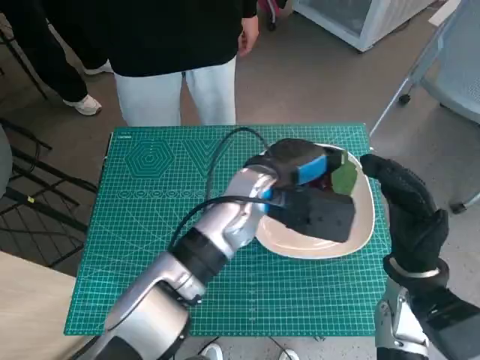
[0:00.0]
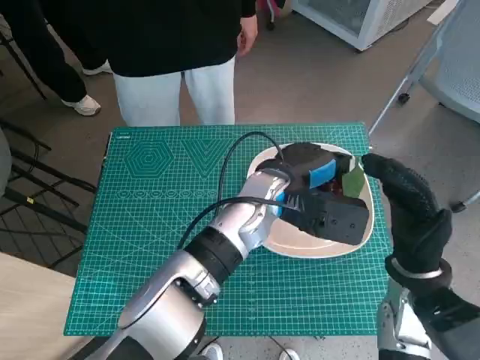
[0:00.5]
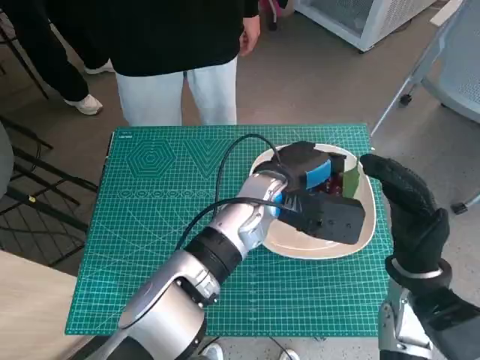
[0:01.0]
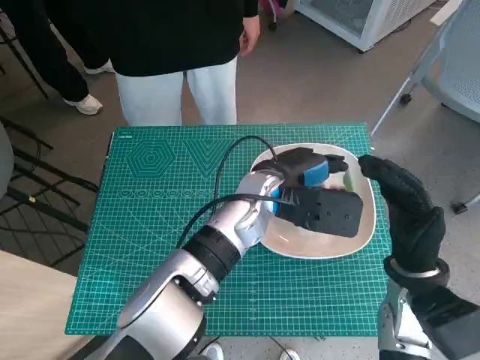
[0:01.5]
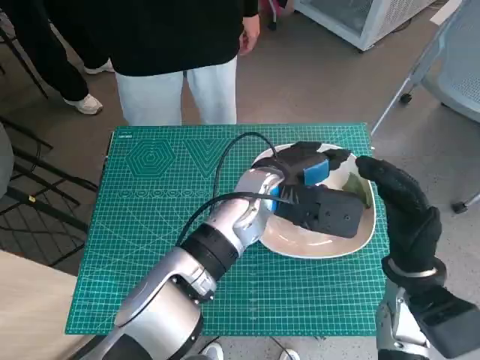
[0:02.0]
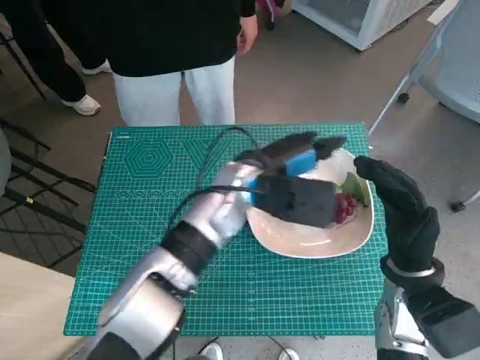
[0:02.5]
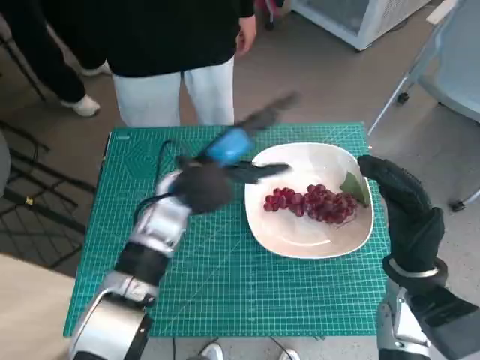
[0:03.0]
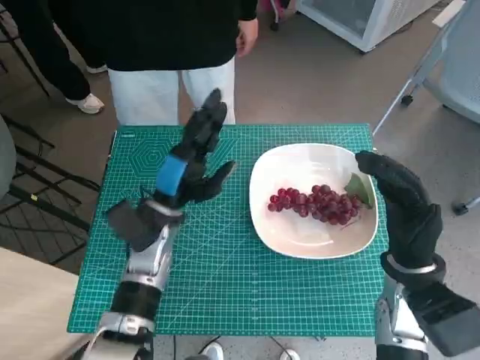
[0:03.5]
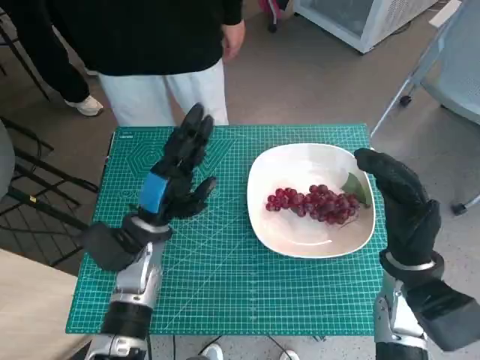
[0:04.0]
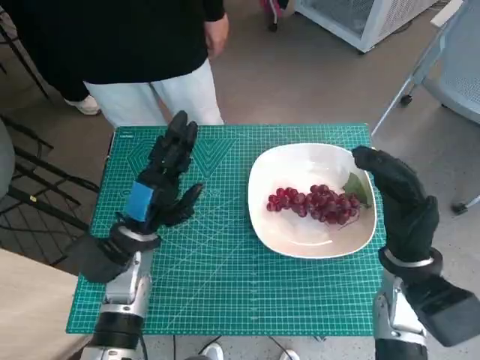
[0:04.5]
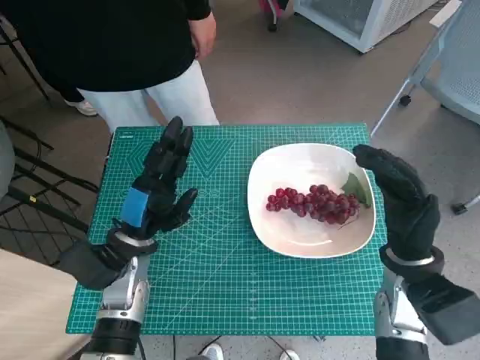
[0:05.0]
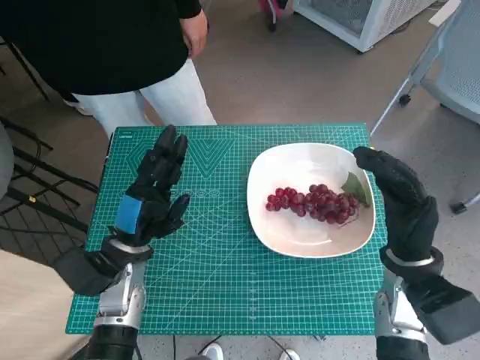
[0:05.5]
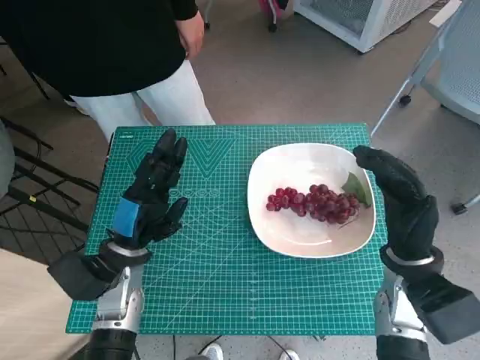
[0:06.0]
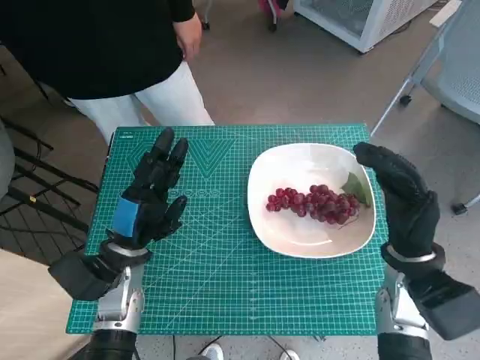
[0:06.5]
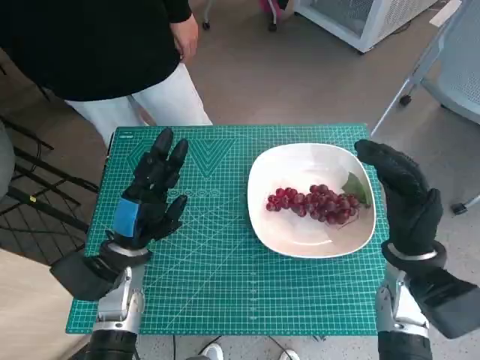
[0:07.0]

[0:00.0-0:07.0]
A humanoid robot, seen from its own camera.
Task of the whole recording: Pick up the grapes and put them on the plate.
Step, 0:00.0 to 0:02.0: Place the grapes in the plate with left hand.
0:00.0 to 0:02.0: There are only small adjustments of the hands.
0:02.0 to 0:03.5: The left hand travels to the left by some 15 cm.
0:03.5 to 0:05.0: The left hand ends up some 5 cm from where it was.
0:05.0 to 0:07.0: The hands move only a little.

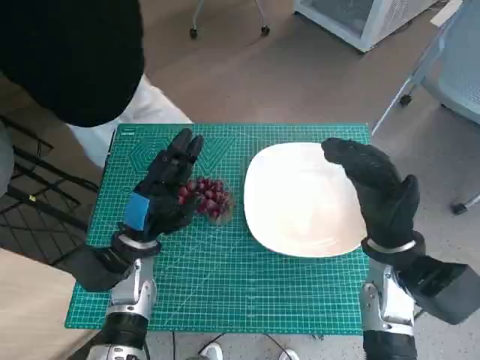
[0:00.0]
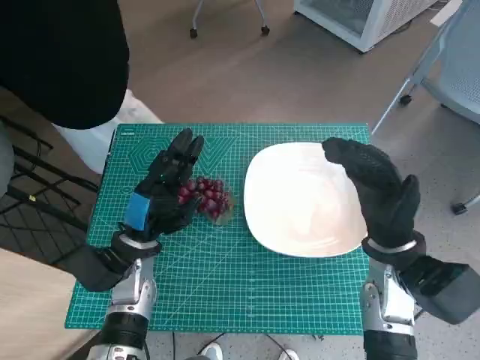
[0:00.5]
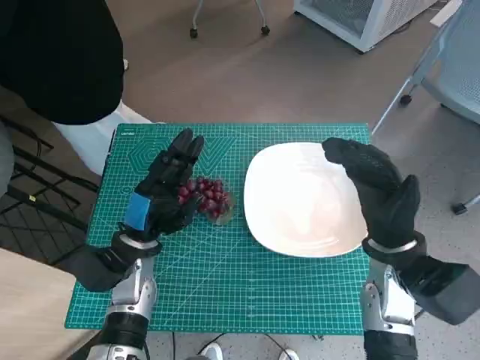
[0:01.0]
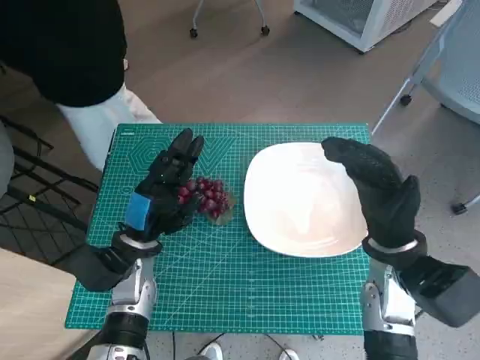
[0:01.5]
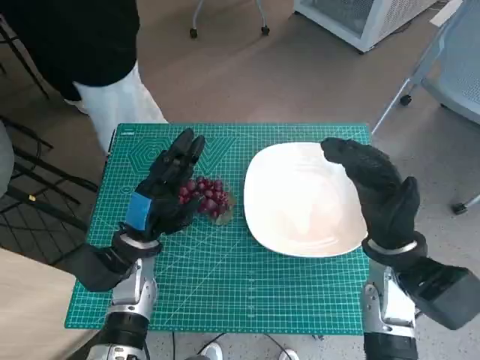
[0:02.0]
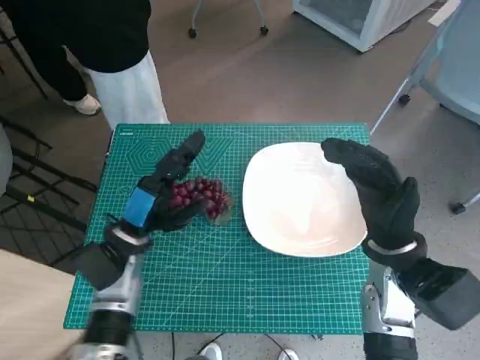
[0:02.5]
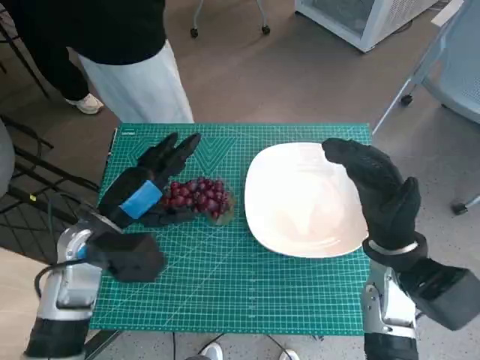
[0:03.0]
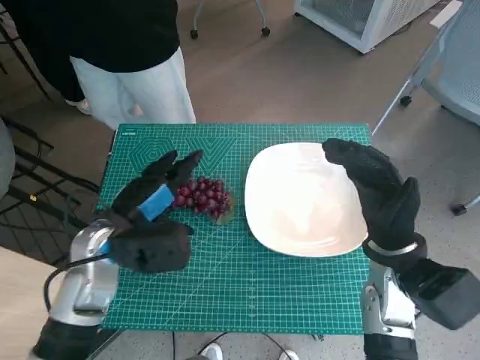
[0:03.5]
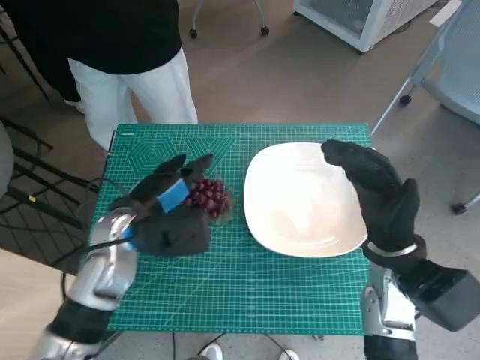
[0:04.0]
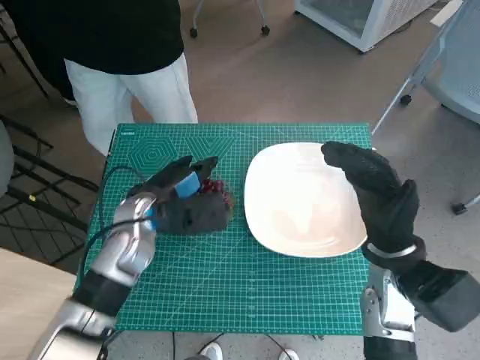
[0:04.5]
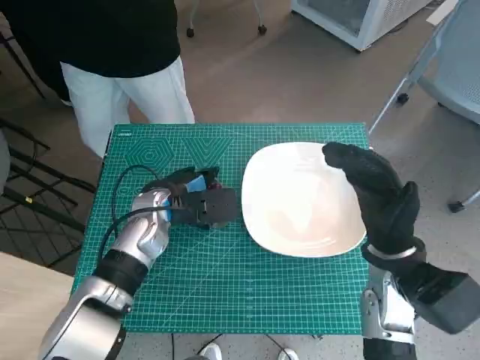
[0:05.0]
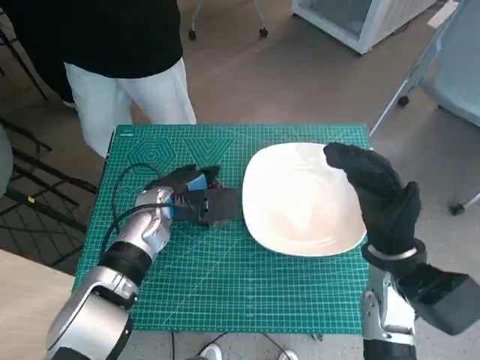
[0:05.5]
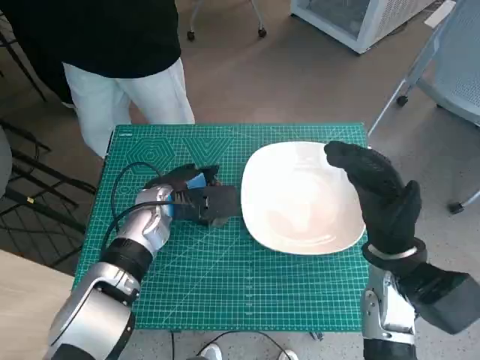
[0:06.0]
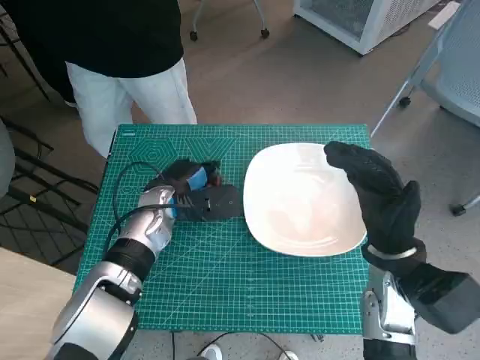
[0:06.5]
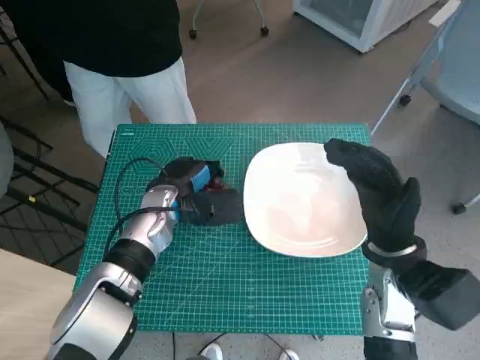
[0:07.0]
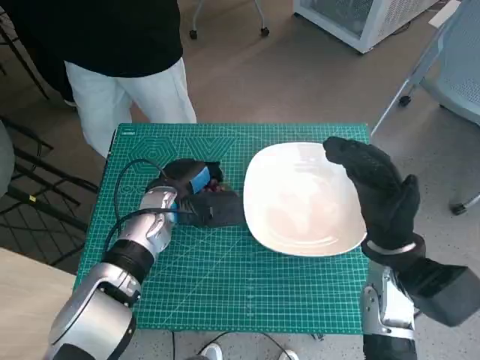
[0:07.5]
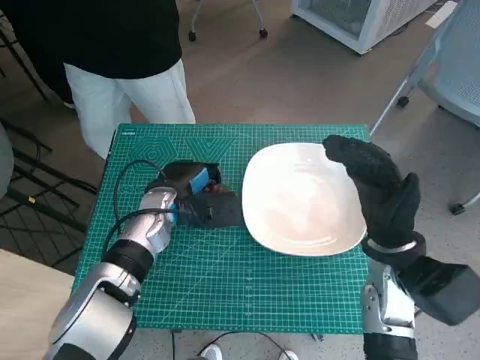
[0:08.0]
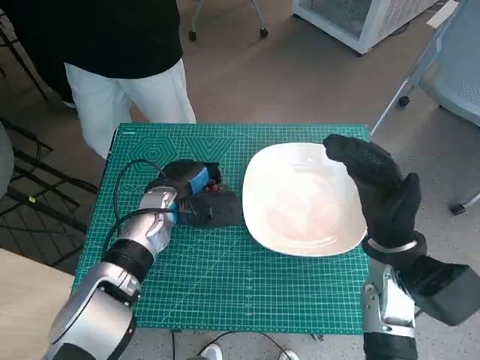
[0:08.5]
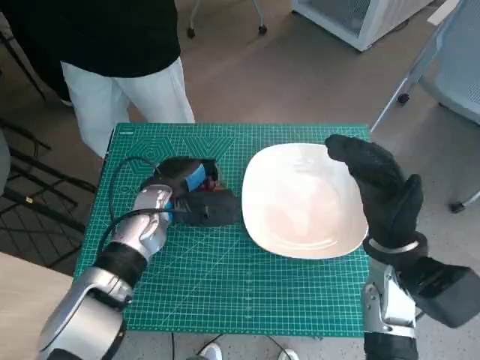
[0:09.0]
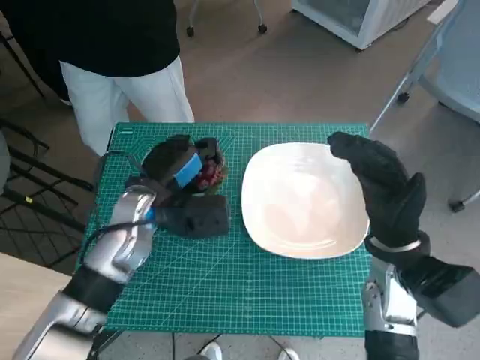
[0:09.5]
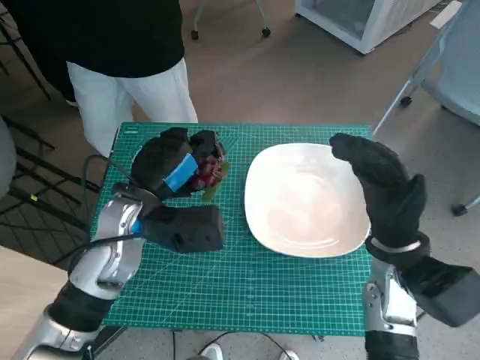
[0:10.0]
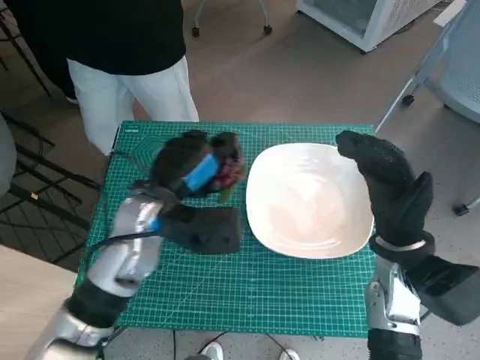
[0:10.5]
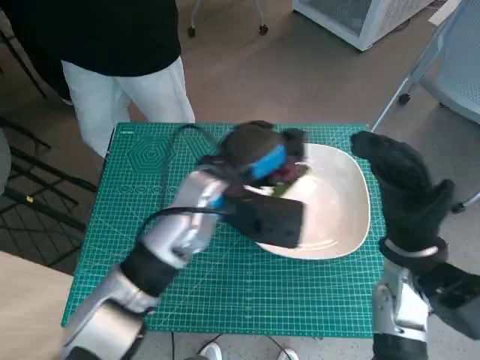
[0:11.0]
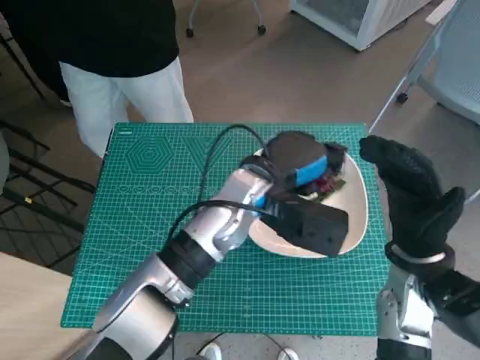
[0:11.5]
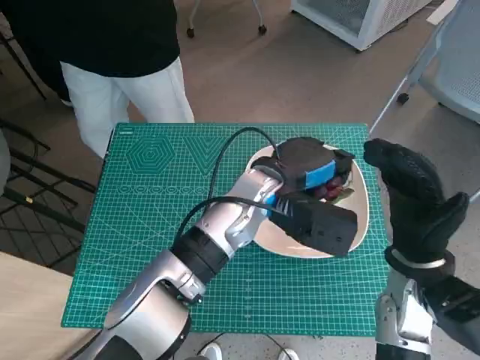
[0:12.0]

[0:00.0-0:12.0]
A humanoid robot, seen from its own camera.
Task of the whole recording: Pick up the grapes and put them on the plate.
Step, 0:00.0 to 0:06.5: Grasp the grapes with left hand.
0:02.0 to 0:04.0: The left hand travels upward by about 5 cm.
0:04.0 to 0:06.0: The left hand moves forward, approximately 5 cm.
0:06.0 to 0:08.0: There are only small adjustments of the hands.
0:08.0 to 0:10.0: The left hand moves upward and backward, about 10 cm.
0:10.0 to 0:12.0: The left hand goes approximately 15 cm to the right.

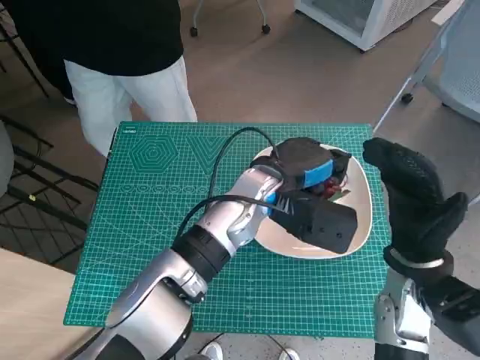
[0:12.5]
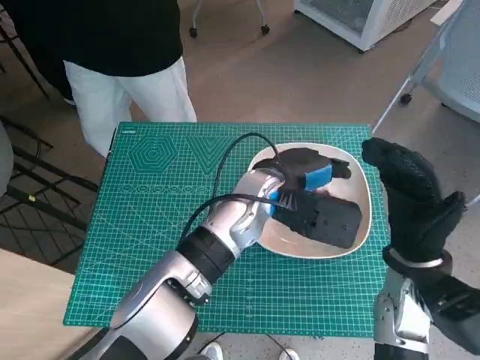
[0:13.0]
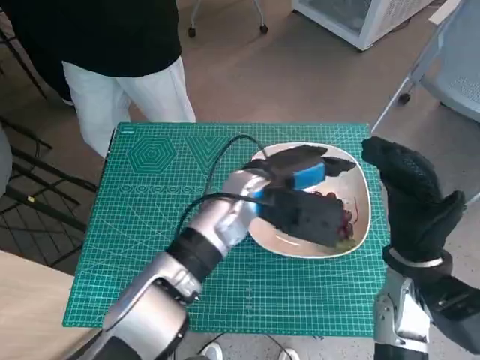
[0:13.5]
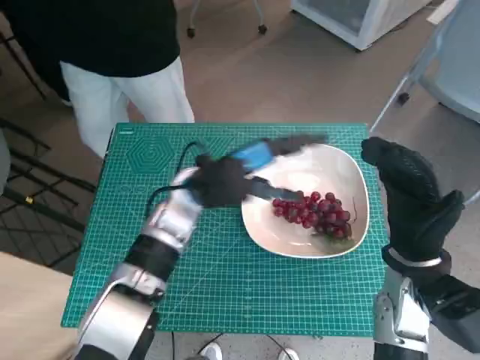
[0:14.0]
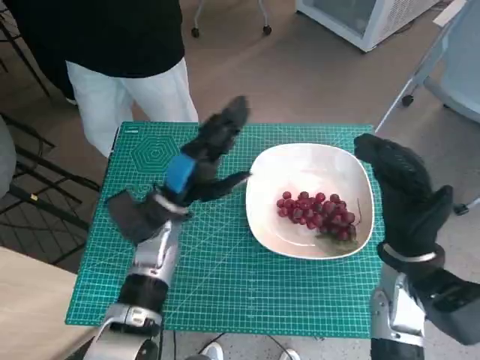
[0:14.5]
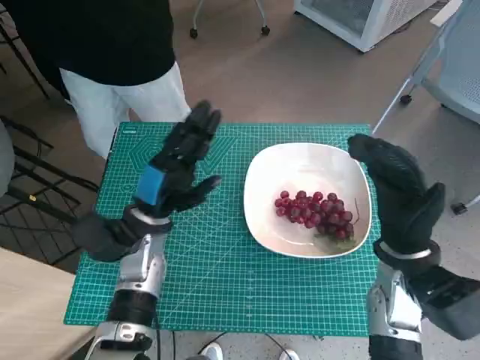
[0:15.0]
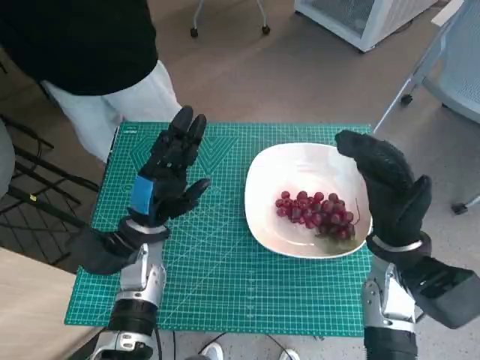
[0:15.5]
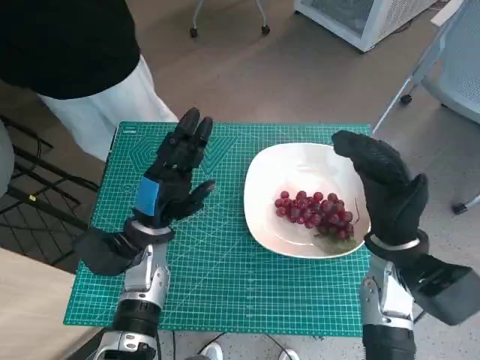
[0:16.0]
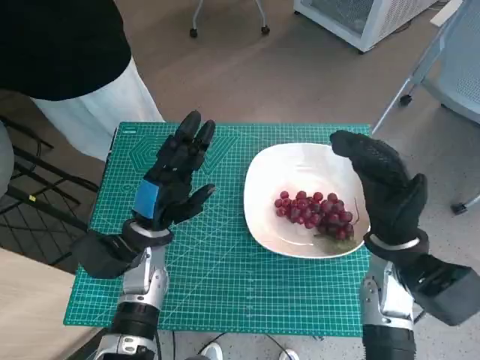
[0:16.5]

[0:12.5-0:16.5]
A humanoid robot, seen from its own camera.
Task of the whole recording: Pick up the grapes and put them on the plate.
0:12.5 to 0:14.5: The left hand moves to the left and downward, roughly 15 cm.
0:14.5 to 0:16.5: The left hand shifts by some 5 cm.

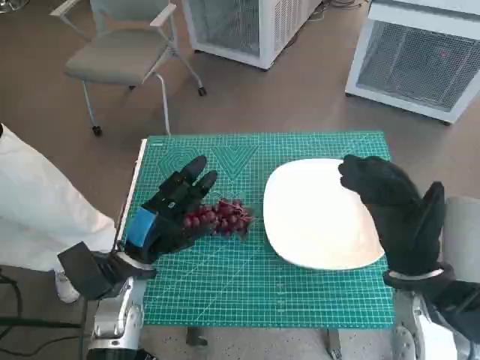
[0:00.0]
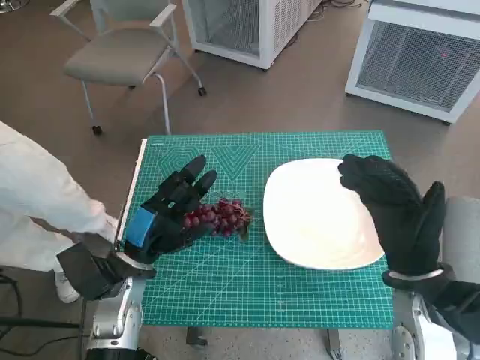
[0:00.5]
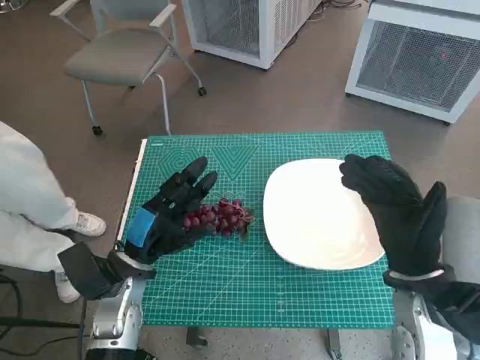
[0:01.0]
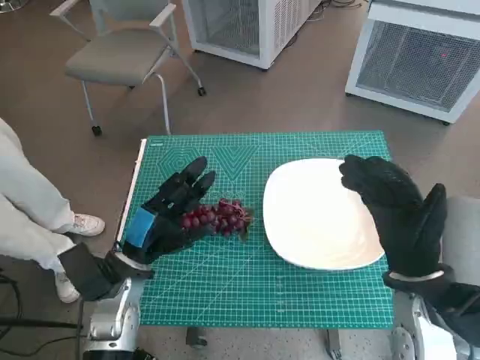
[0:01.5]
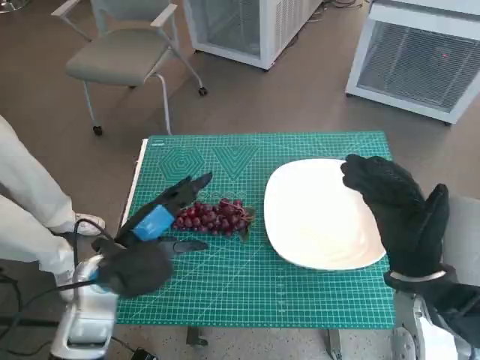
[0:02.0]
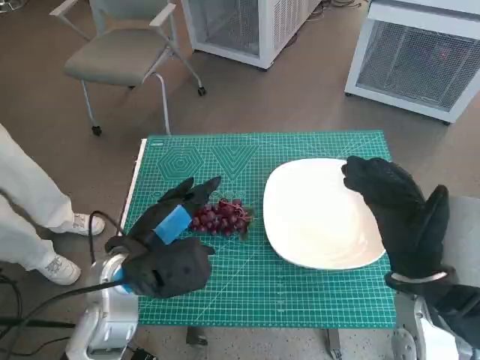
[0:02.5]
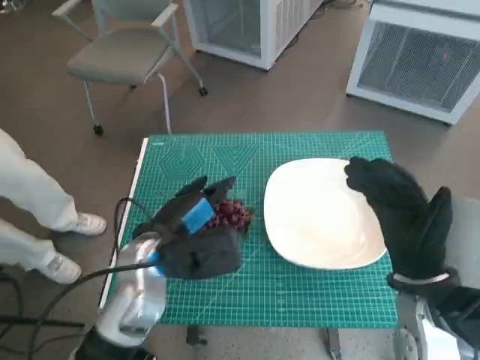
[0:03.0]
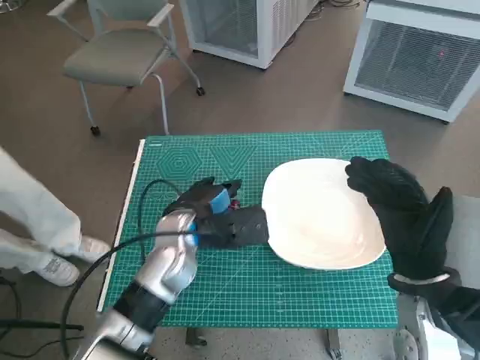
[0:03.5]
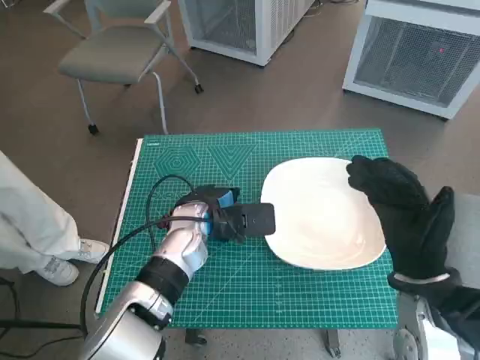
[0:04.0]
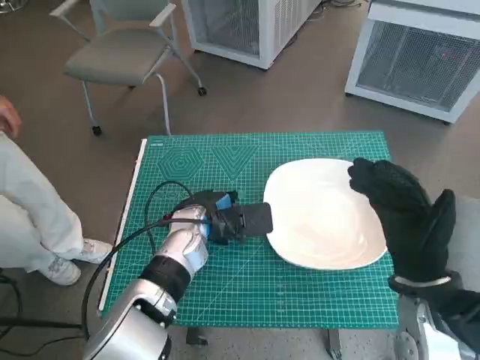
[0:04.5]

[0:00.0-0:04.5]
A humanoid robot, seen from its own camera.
Task of the whole recording: Pick up the grapes and put them on the plate.
0:02.0 to 0:04.5: The left hand goes approximately 15 cm to the right and forward.
